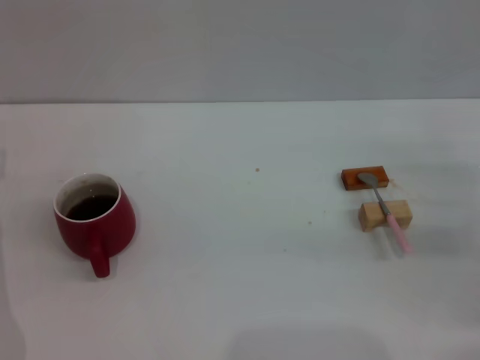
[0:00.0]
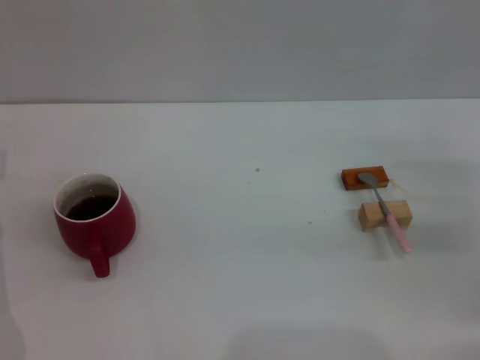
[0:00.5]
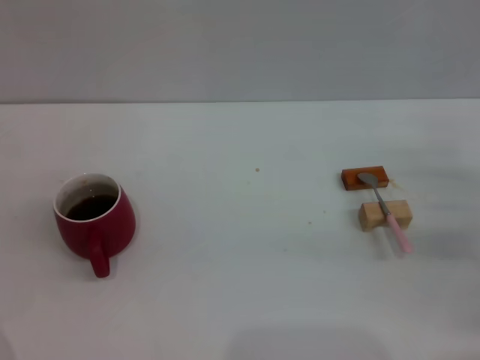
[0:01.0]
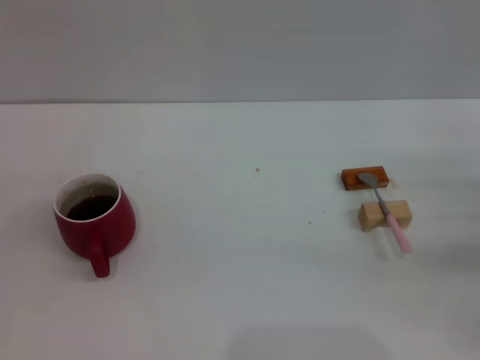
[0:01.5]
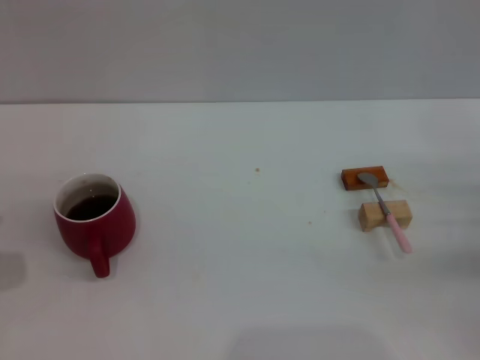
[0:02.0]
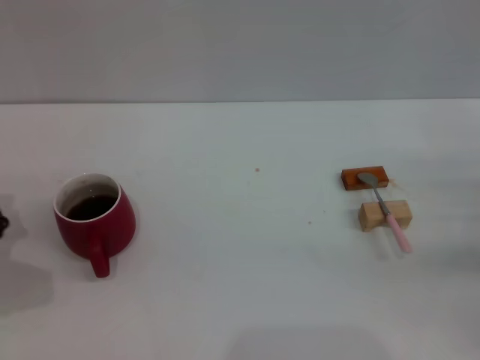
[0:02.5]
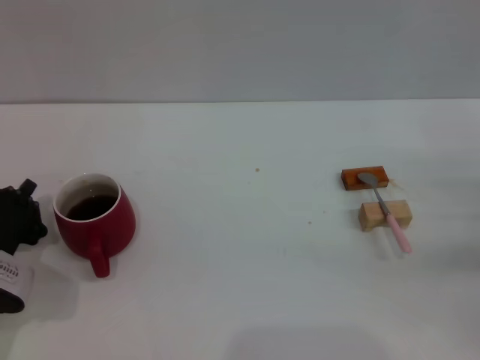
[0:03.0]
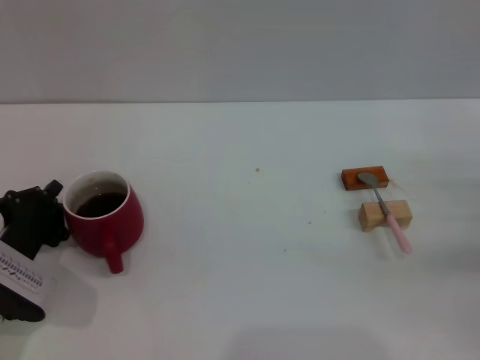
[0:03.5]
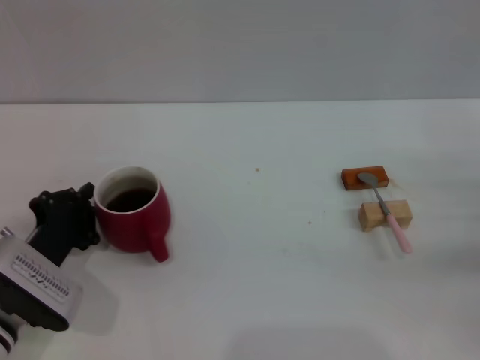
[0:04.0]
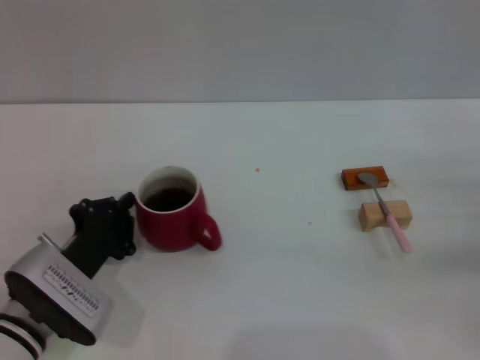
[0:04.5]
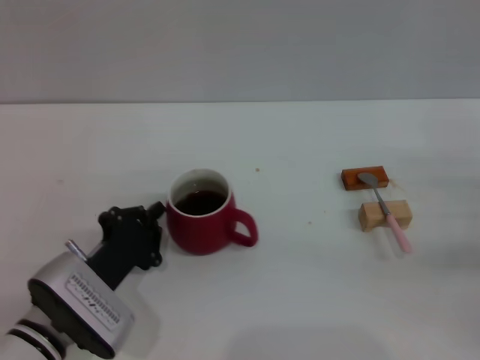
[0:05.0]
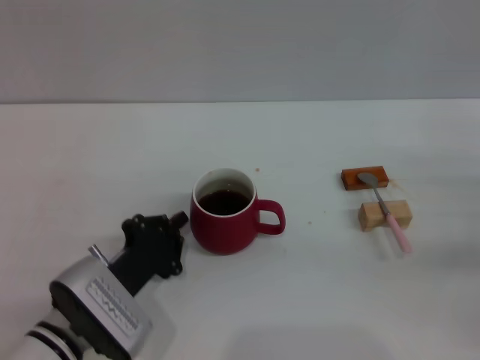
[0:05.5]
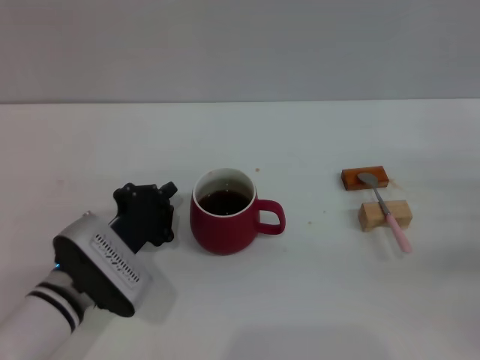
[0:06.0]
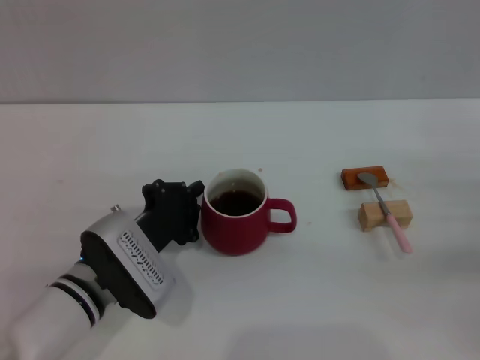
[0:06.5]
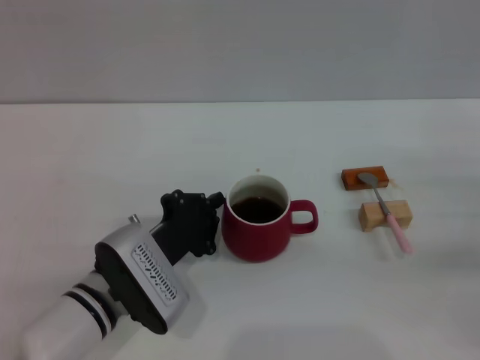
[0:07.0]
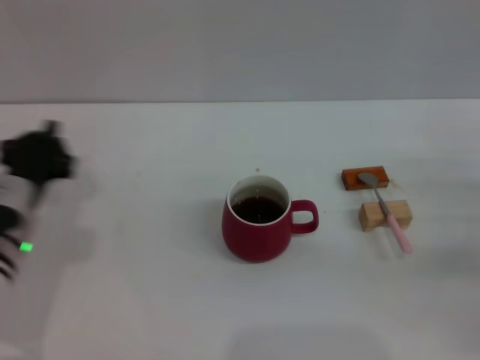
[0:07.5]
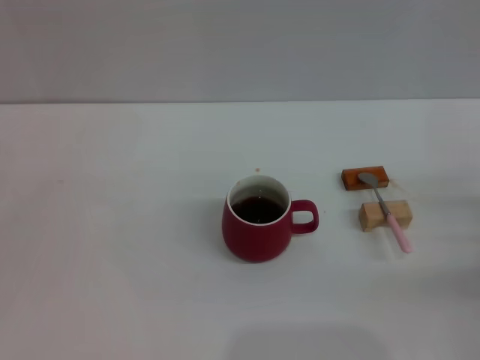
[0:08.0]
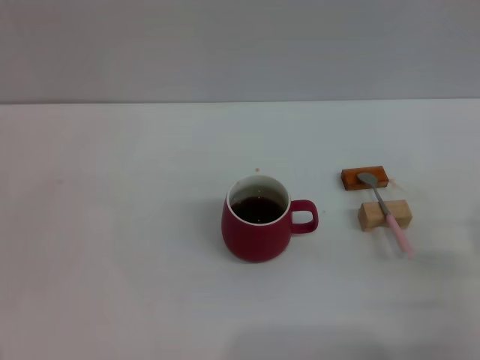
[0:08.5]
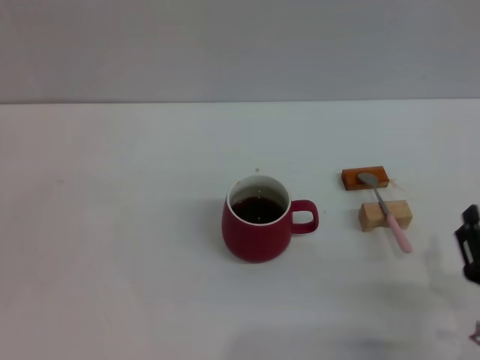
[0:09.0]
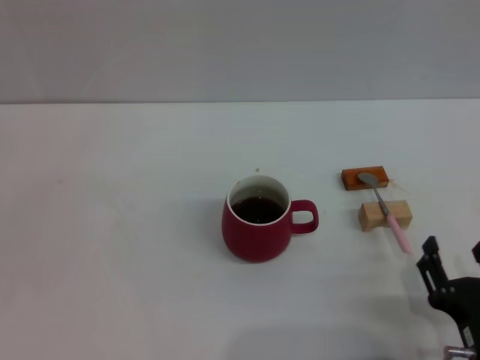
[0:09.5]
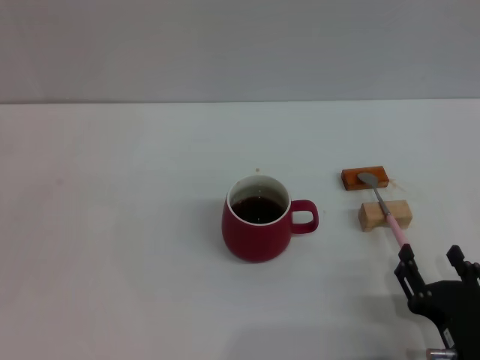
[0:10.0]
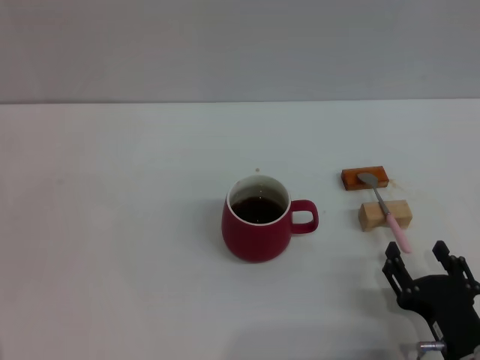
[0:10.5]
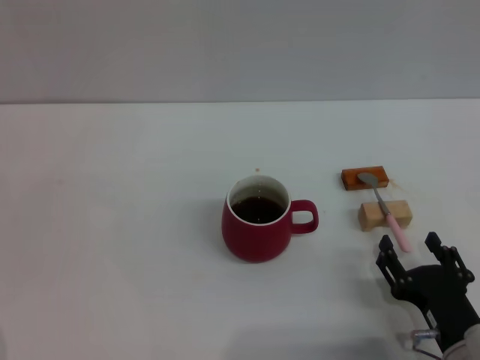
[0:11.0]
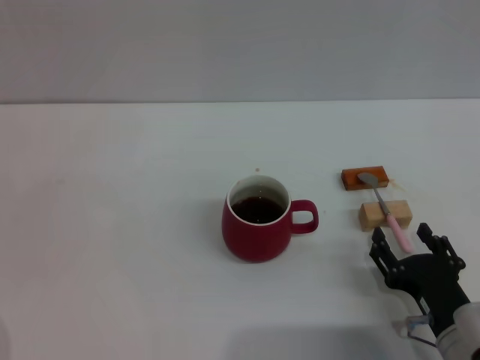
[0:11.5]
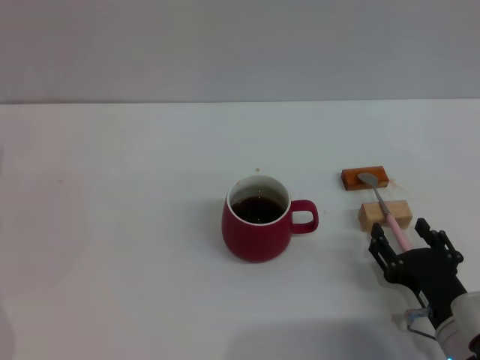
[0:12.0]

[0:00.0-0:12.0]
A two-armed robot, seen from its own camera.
Task of the whole recording: Move the red cup to the center, lift the pink spoon, stir it three times in the cup, and put the spoon into the cup.
Step, 0:00.0 to 0:07.0: Move the cup with coffee to the center of view with the left gripper.
0:02.0 to 0:04.0: The left gripper shifts some 10 cm to the right, and closes its fingers.
0:04.0 to 0:06.0: The left gripper travels to the right by some 5 cm.
0:06.0 to 0:08.0: The left gripper shifts about 15 cm to the left.
0:08.0 to 0:10.0: The right gripper heads to the left and backward, covering approximately 20 cm.
0:10.0 to 0:12.0: The right gripper heads forward, covering approximately 5 cm.

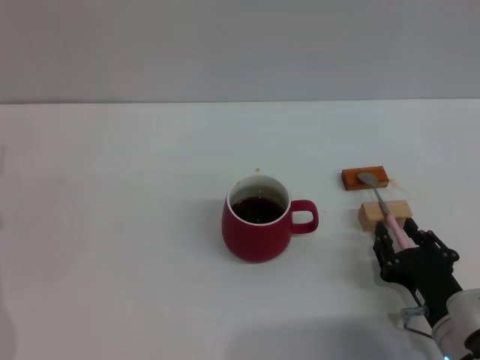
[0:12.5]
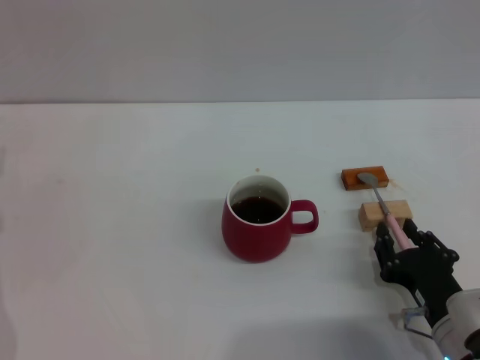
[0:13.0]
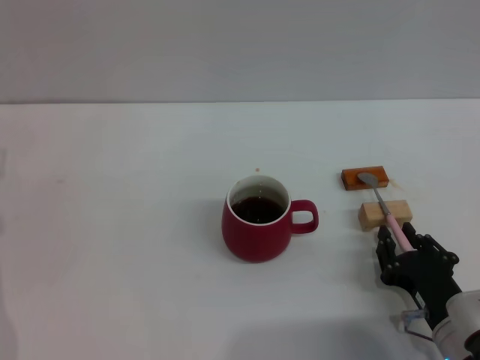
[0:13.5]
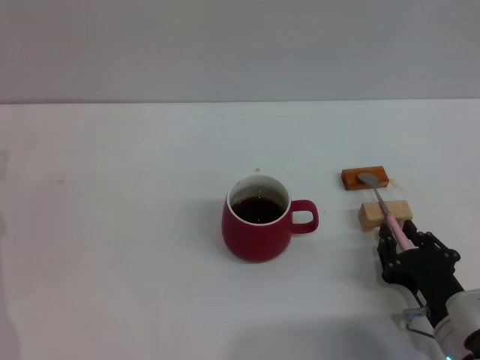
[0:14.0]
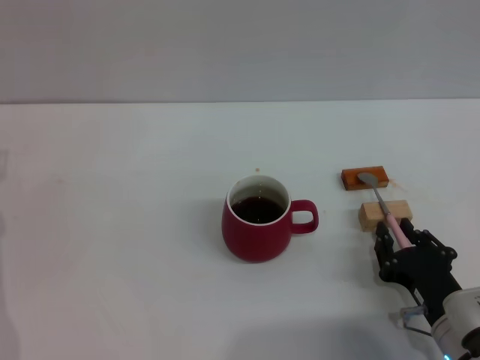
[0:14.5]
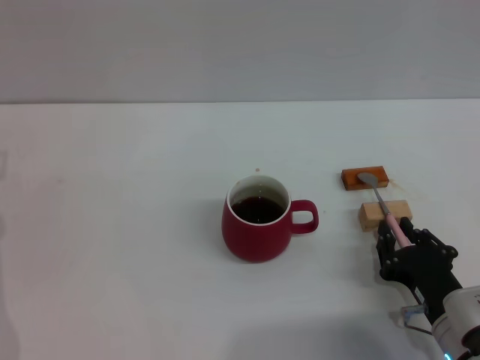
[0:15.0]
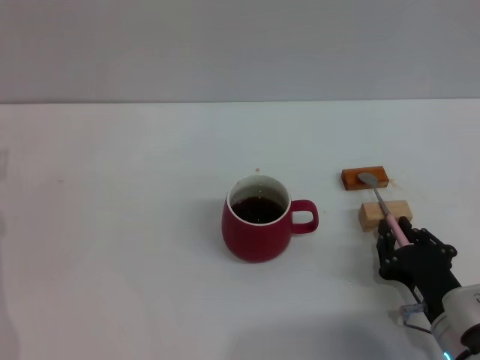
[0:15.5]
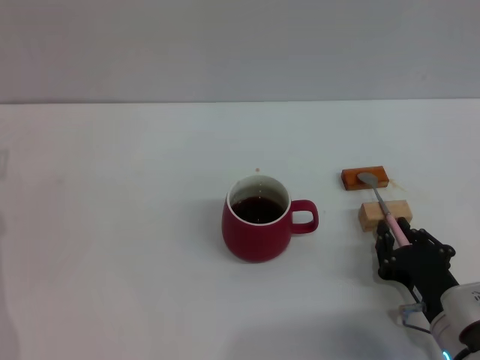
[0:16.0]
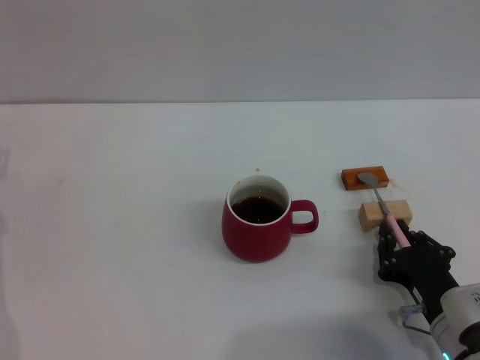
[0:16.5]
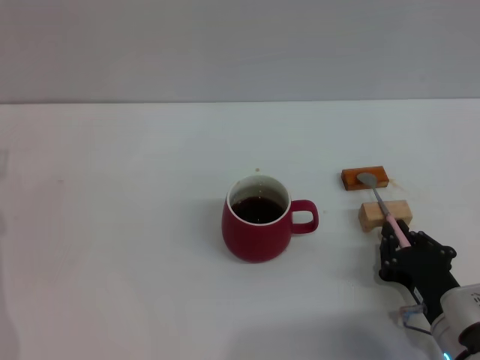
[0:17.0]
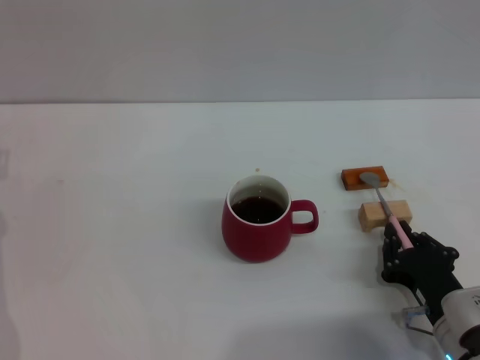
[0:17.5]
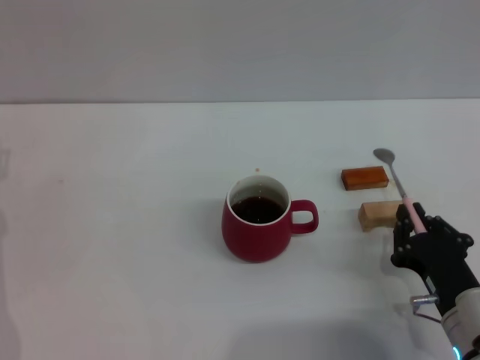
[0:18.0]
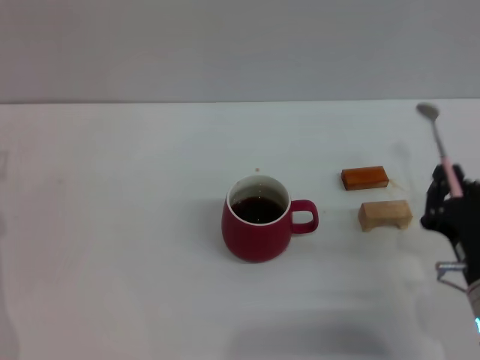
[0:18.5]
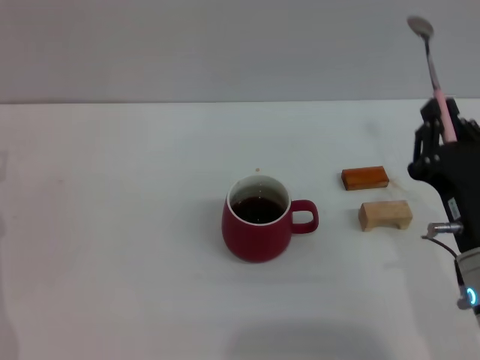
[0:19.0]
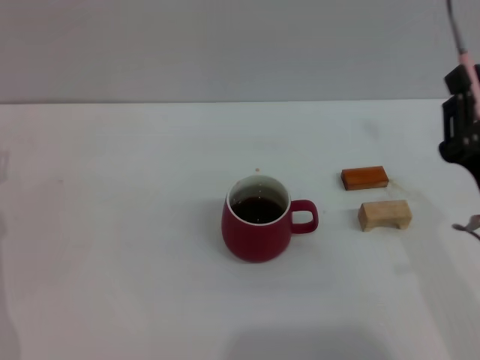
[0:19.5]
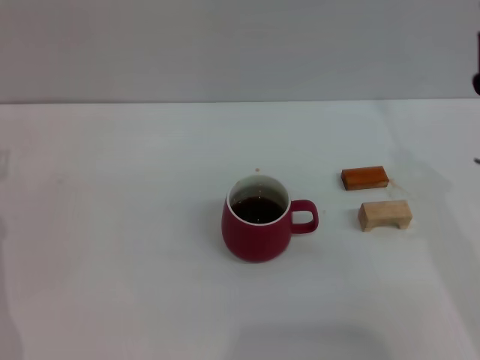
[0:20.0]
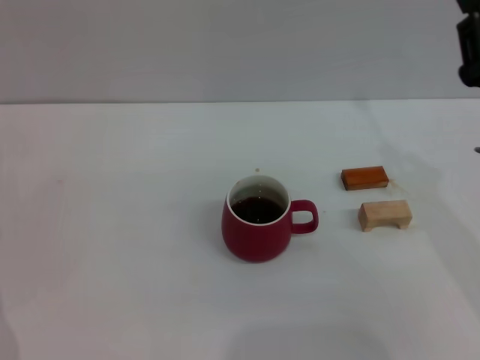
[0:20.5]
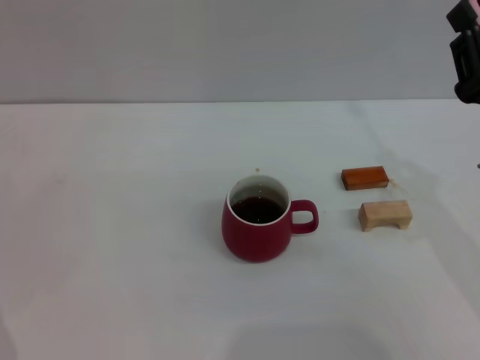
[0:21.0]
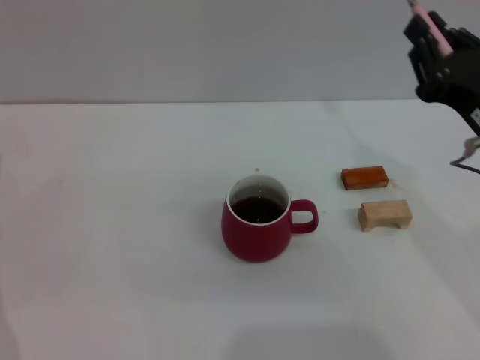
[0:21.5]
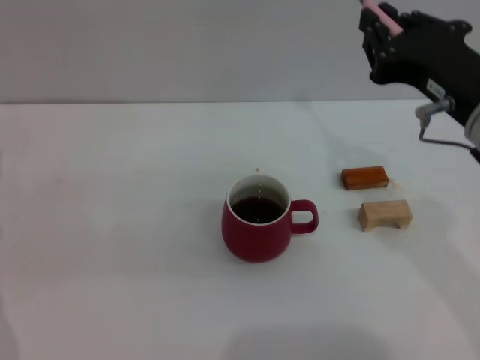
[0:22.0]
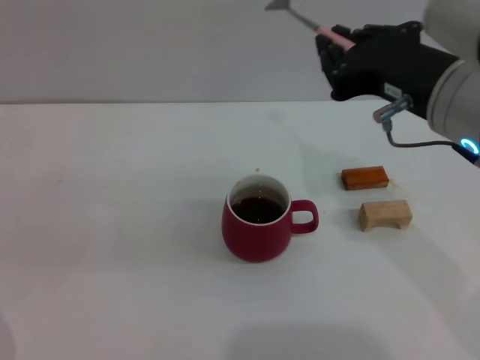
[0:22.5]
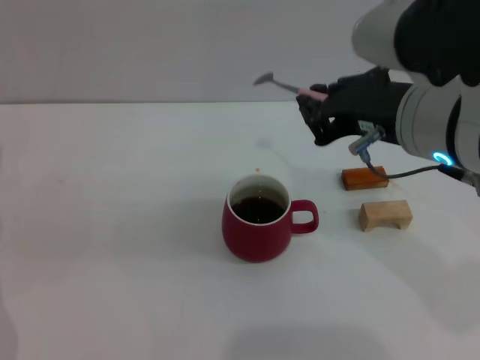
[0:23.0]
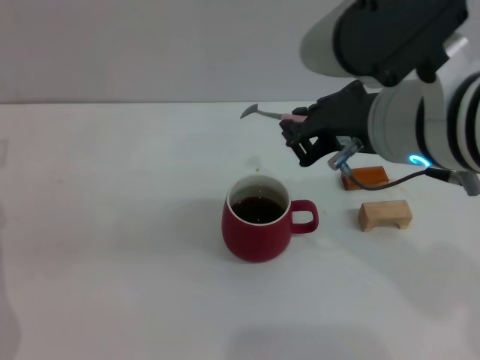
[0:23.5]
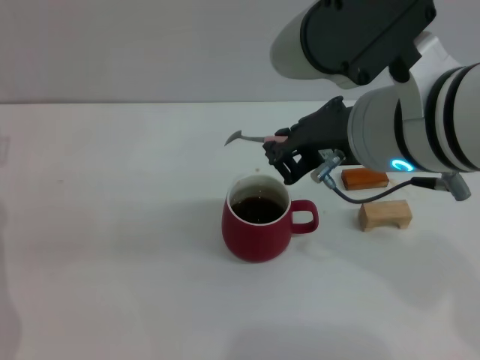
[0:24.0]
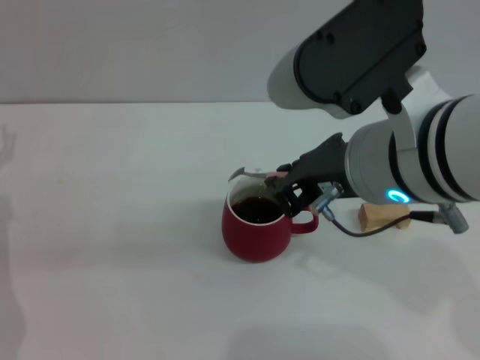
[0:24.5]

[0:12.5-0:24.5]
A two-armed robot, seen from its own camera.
Task of the whole recording: Move the red cup to the center, lift the pink spoon, stir it three times in the cup, and put the spoon into the cup.
Step, 0:12.5 to 0:18.0: Pick up the spoon with the right gripper.
0:12.5 to 0:16.5: The two grippers keep their place.
0:16.5 to 0:18.5: The right gripper moves upward, roughly 5 cm.
0:18.5 to 0:20.5: The right gripper travels upward by roughly 10 cm.
0:20.5 to 0:22.5: The right gripper travels upward and to the left by roughly 15 cm.
0:22.5 to 0:24.5: The right gripper is displaced to the left by about 5 cm.

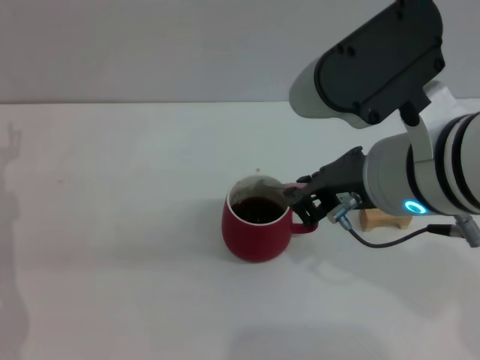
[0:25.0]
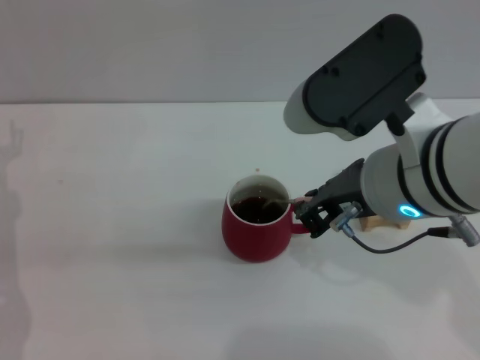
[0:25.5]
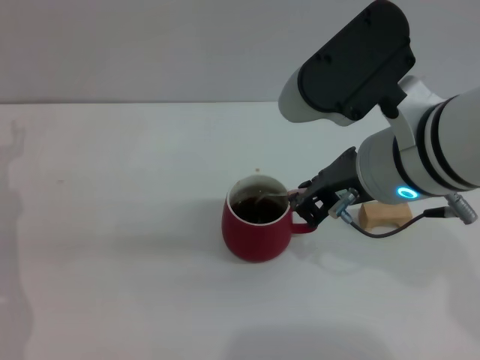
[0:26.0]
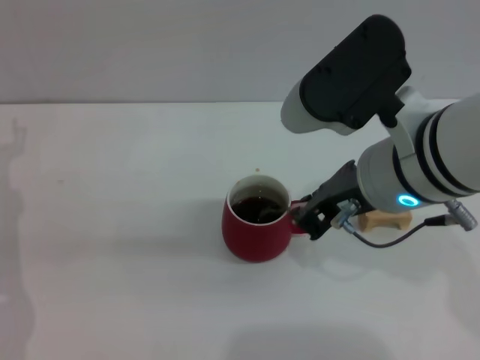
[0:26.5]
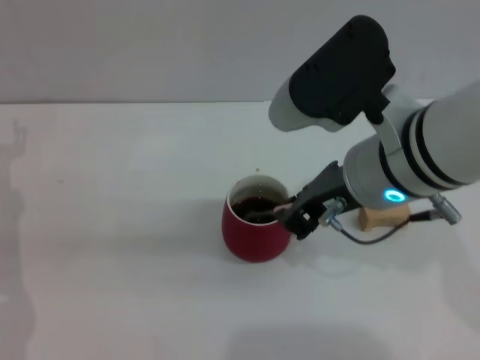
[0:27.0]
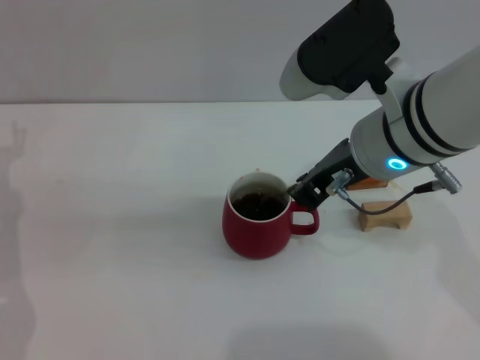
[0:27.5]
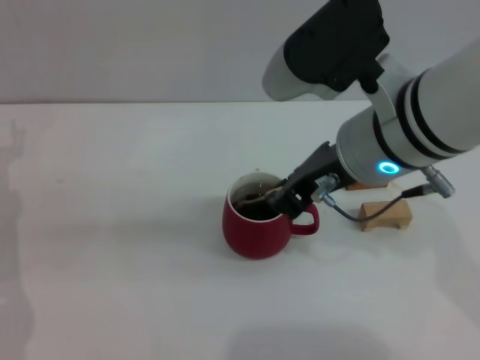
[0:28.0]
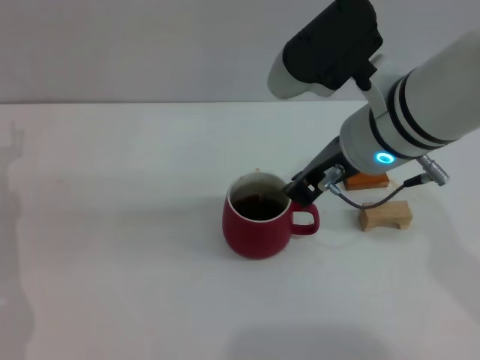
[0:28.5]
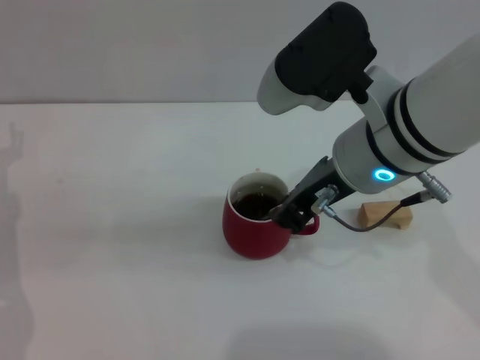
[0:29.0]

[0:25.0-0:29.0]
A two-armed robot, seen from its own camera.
Task of the whole recording: Move the red cup to the center, lift the pink spoon, stir it three times in the cup, and put the spoon into the cup.
0:25.0 to 0:27.0: The grippers move only a little.
0:27.0 to 0:29.0: There are only small adjustments of the grippers.
